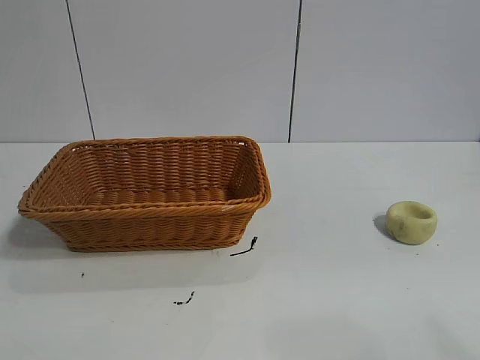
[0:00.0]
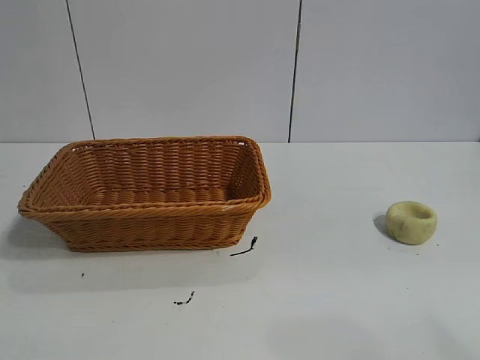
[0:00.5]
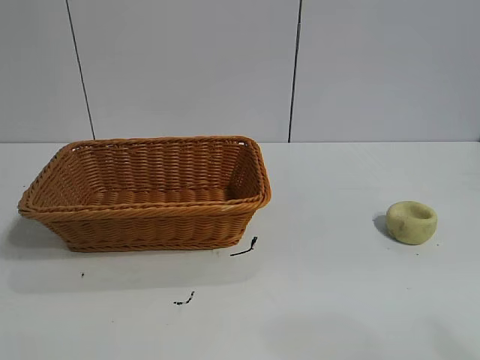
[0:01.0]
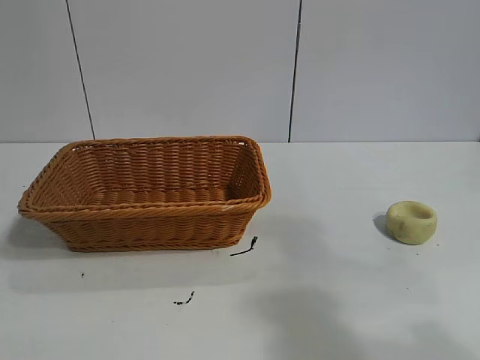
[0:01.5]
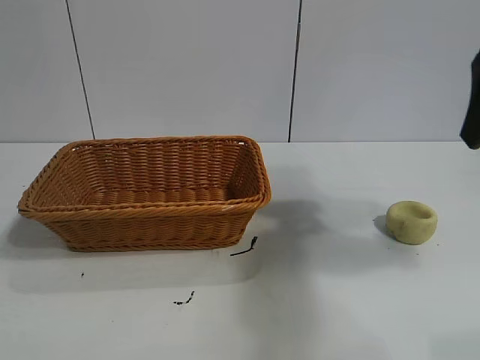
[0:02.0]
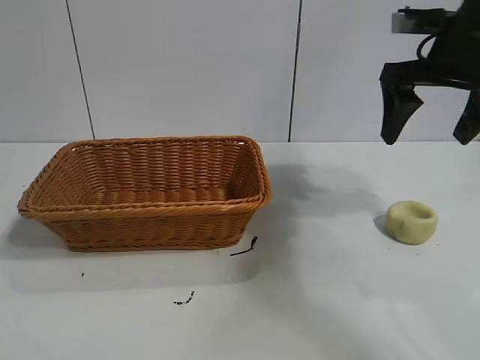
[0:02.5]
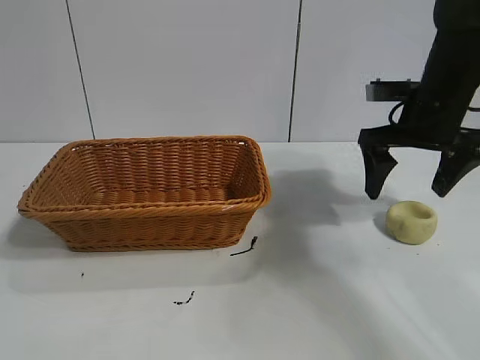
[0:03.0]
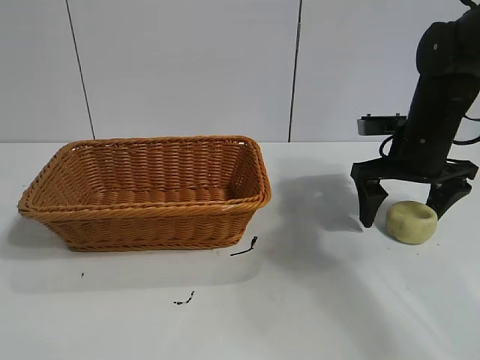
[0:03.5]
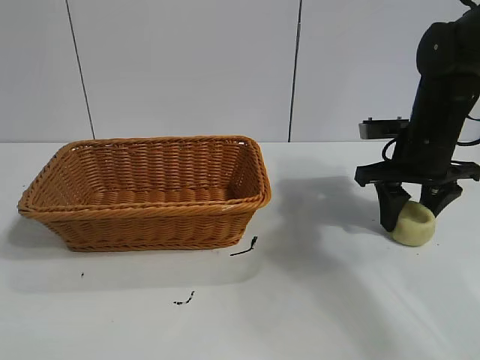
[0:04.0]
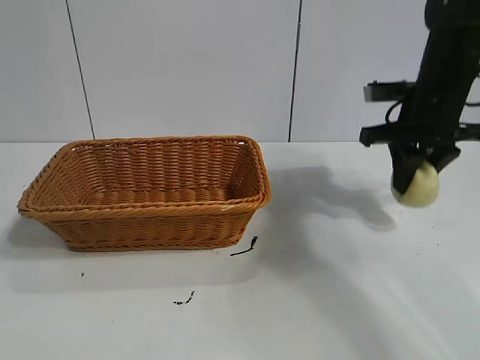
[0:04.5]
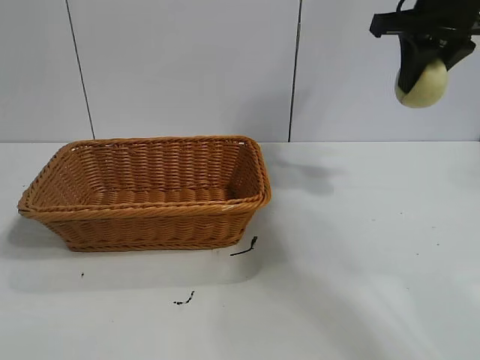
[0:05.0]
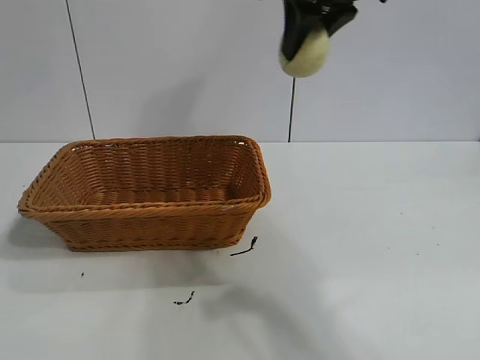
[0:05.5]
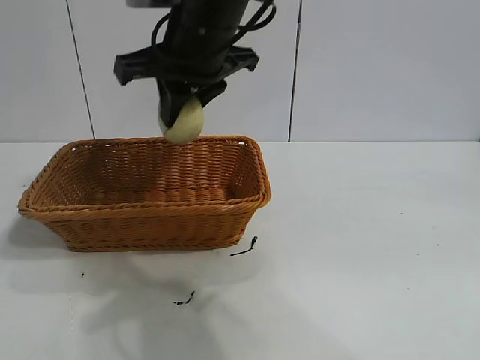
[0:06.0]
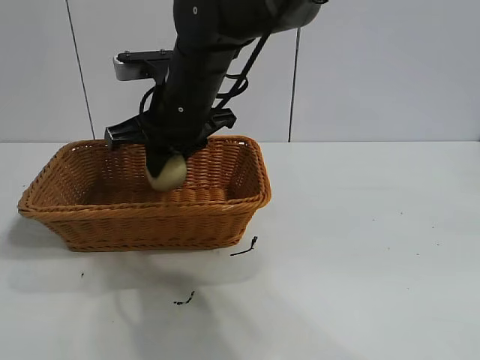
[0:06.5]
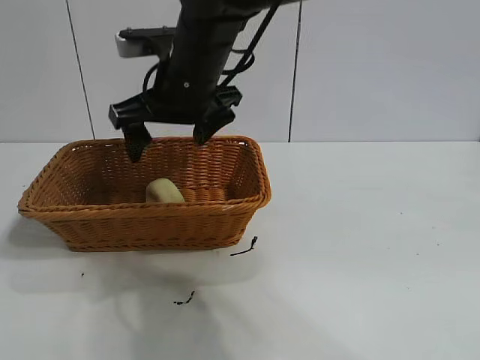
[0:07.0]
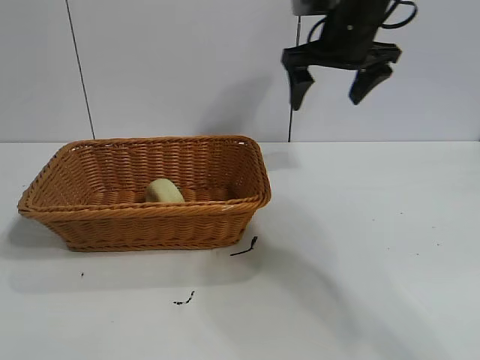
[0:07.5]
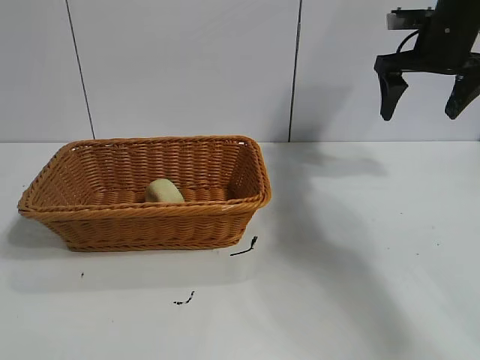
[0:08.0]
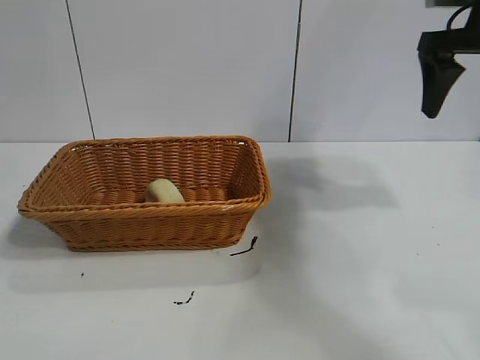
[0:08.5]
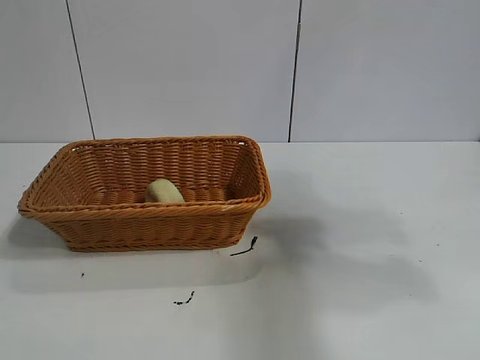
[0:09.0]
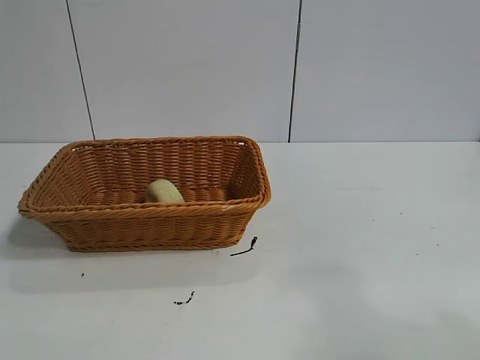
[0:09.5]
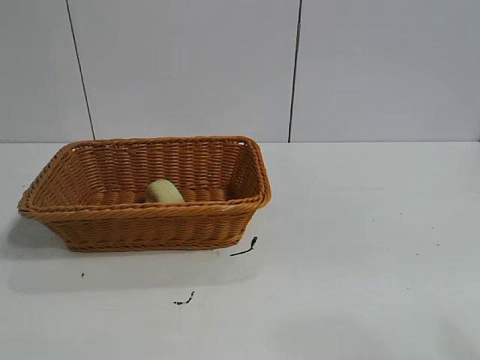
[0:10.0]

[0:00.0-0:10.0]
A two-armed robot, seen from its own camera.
Task of the whole recording: pick up the egg yolk pastry and put it into the basket.
Step, 0:01.5 to 0:04.0: Grasp egg yolk pastry with right gripper.
Step, 0:04.5 to 0:06.5: Place the egg yolk pastry in the basket with right gripper.

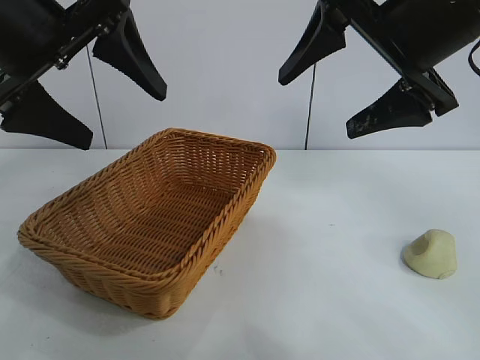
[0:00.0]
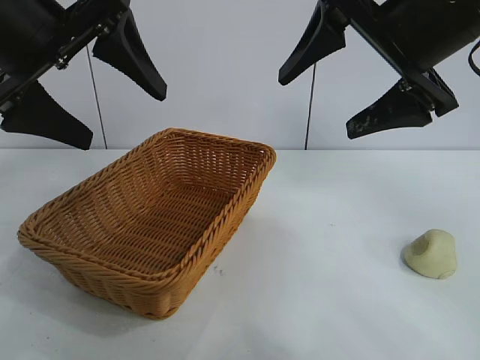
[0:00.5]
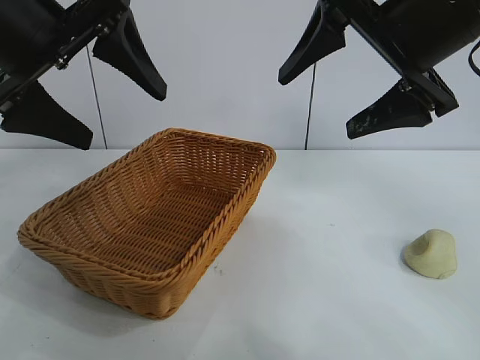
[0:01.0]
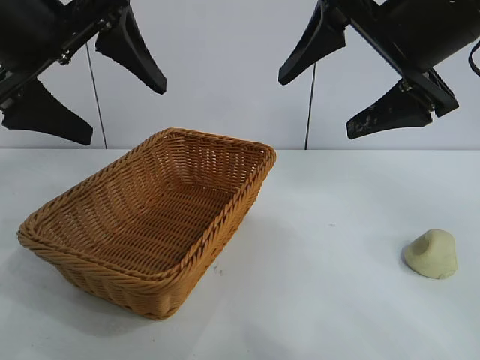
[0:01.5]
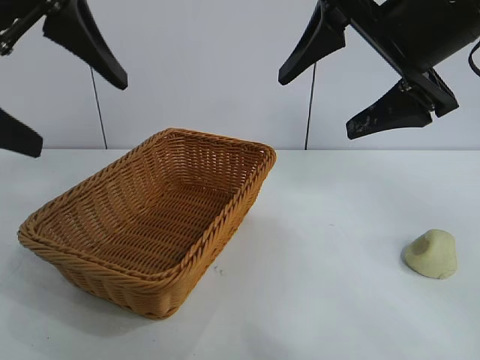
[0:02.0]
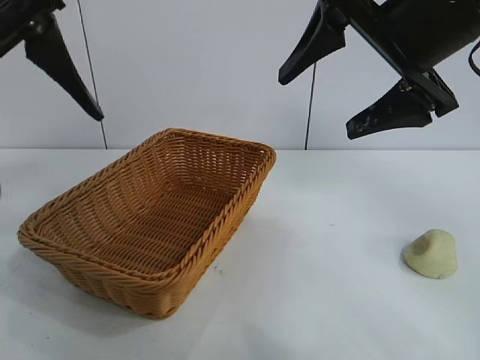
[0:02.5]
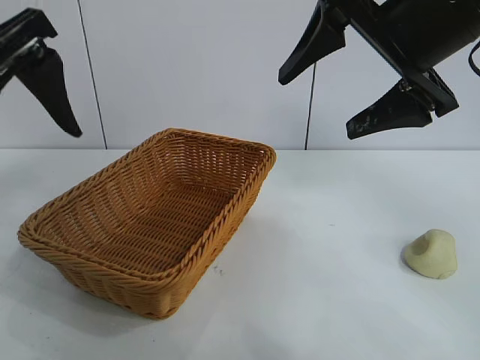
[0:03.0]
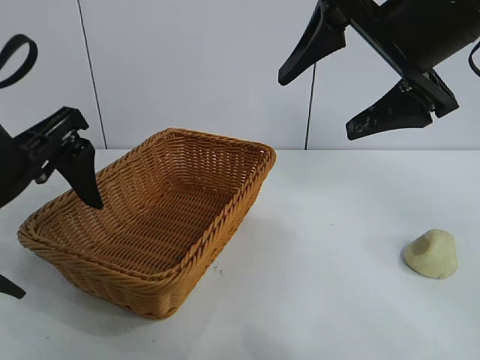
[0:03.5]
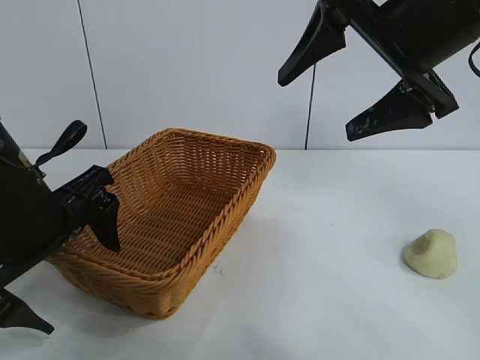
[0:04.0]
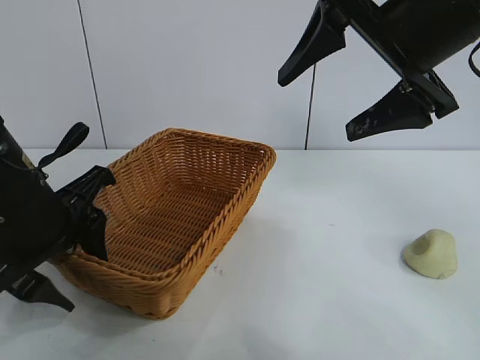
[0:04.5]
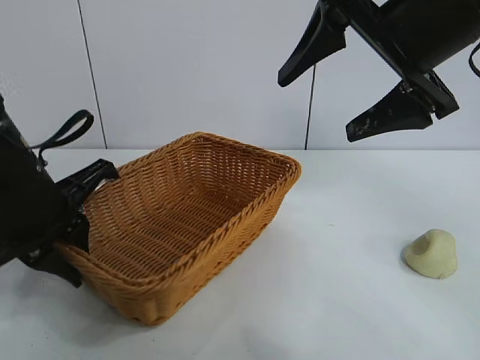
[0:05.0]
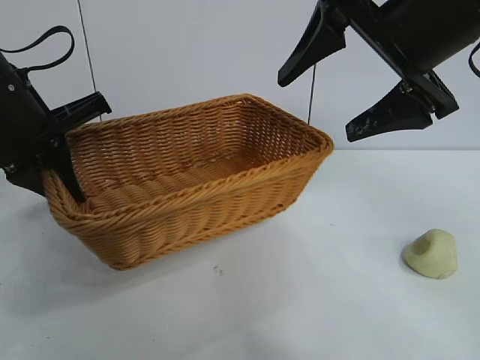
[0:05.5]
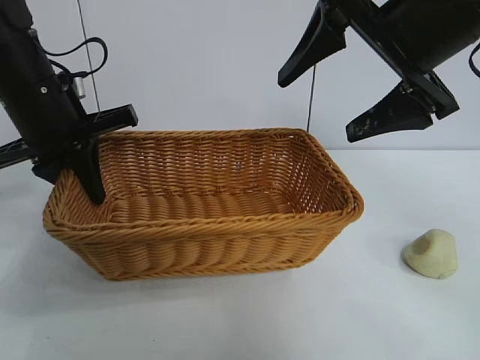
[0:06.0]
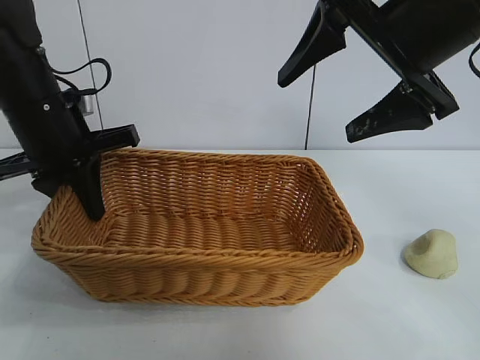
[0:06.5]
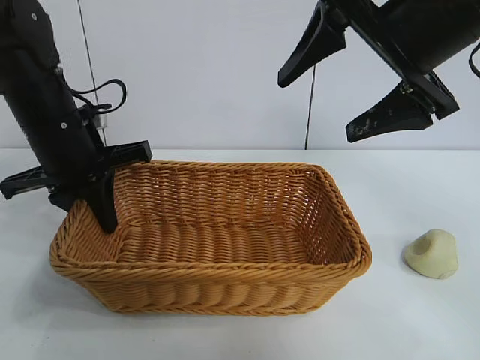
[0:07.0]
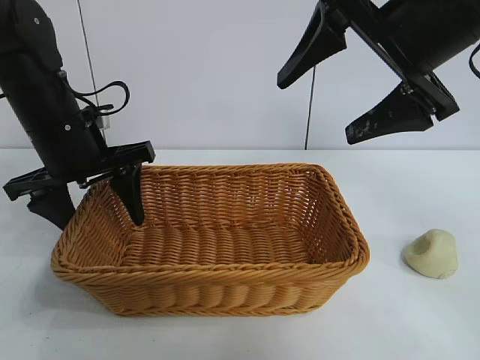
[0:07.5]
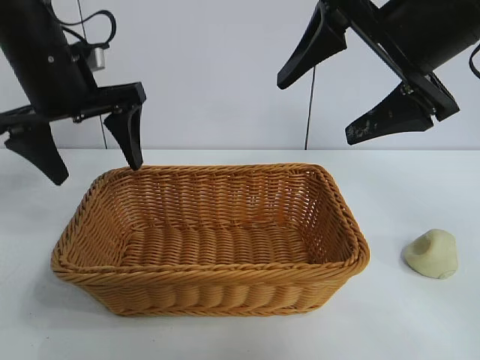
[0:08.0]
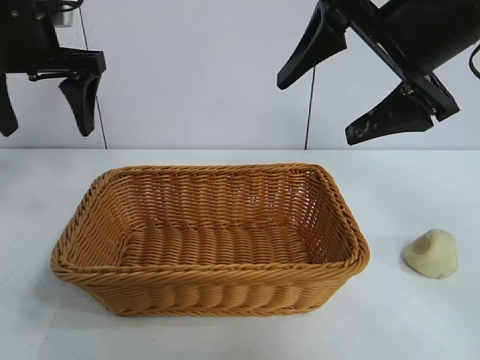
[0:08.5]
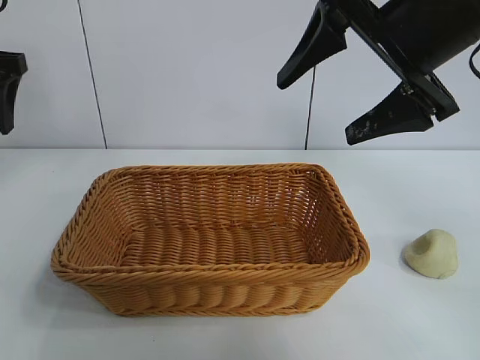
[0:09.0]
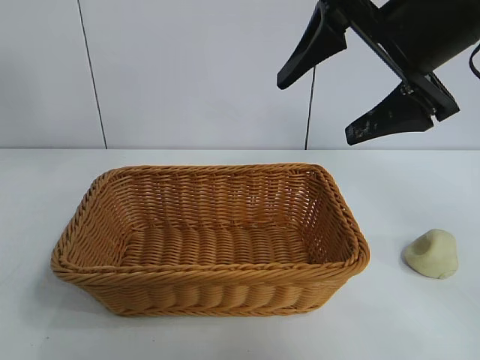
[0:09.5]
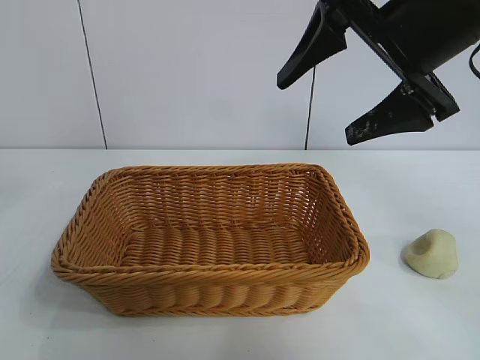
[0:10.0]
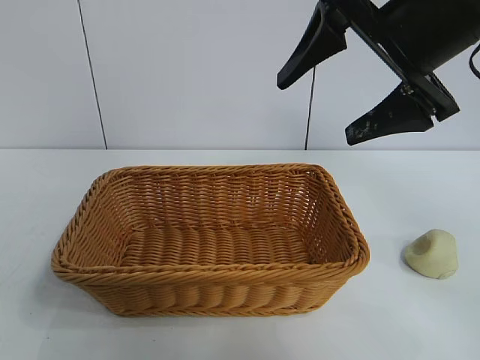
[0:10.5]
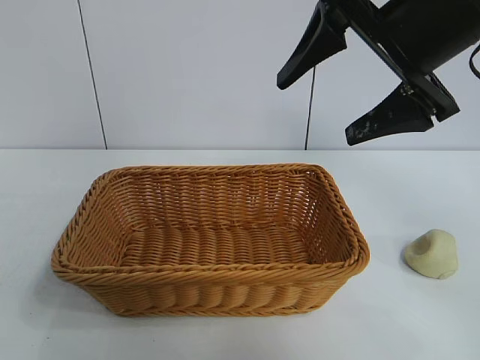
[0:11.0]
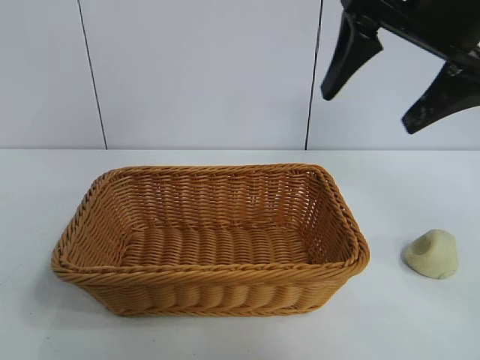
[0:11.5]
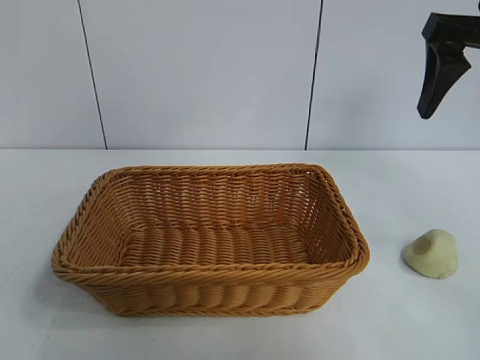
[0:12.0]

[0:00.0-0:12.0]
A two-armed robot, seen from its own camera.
Task of the whole recording: pick up the egg yolk pastry and put it into the basket.
Step, 0:01.5 to 0:04.5: Grasp the basket with left gripper.
Step, 0:05.0 to 0:07.5: Place the basket in the center of view with left gripper.

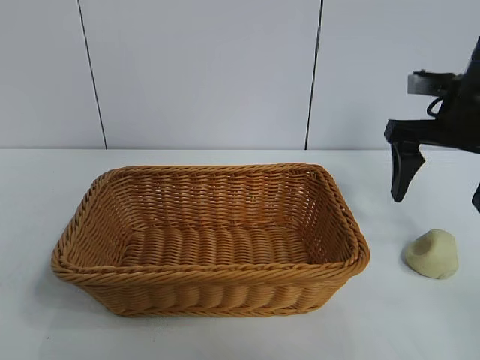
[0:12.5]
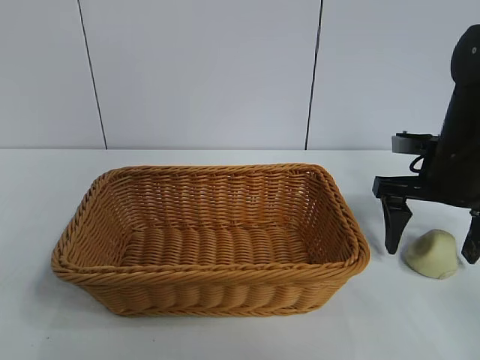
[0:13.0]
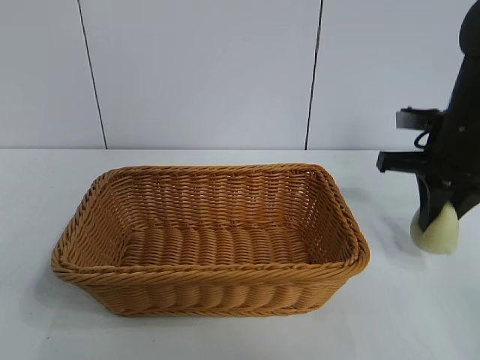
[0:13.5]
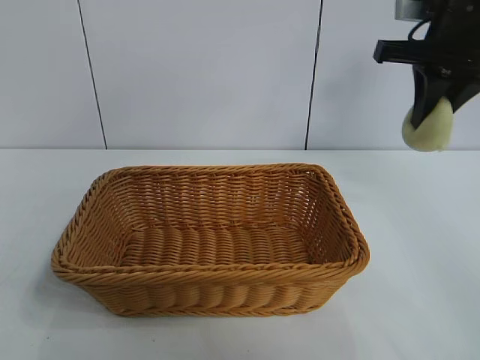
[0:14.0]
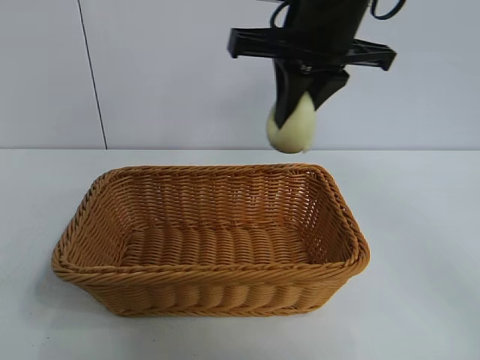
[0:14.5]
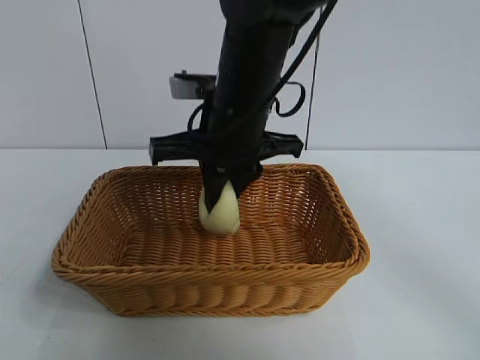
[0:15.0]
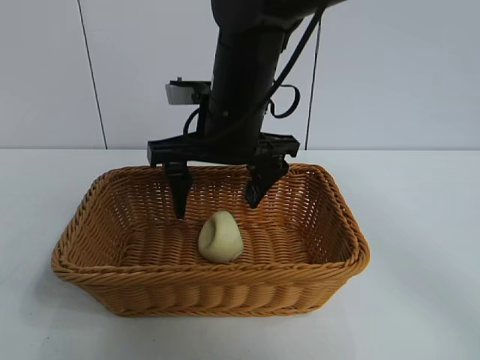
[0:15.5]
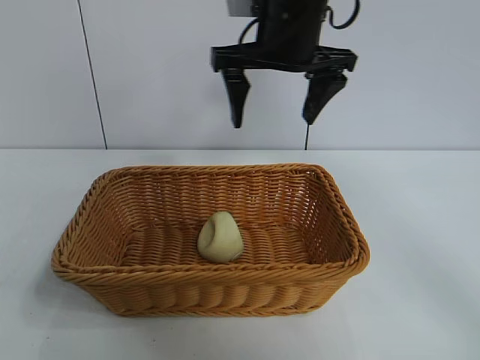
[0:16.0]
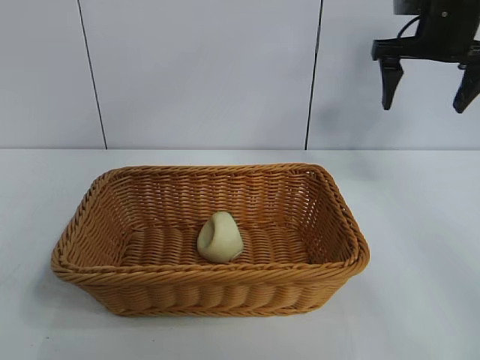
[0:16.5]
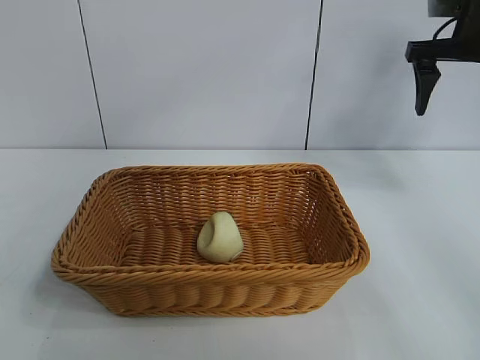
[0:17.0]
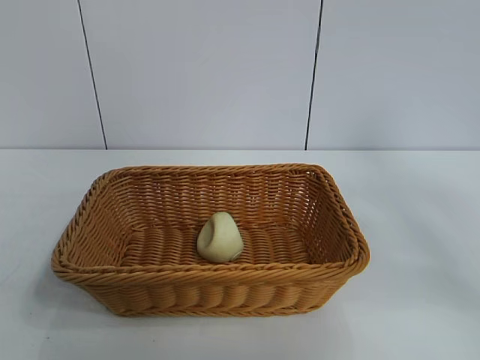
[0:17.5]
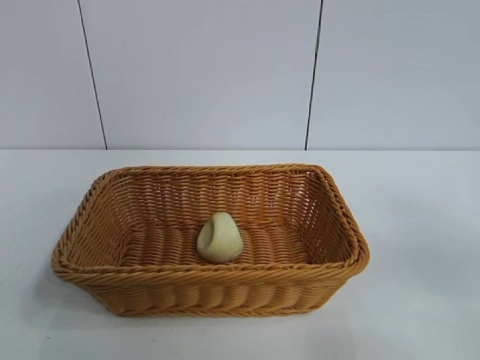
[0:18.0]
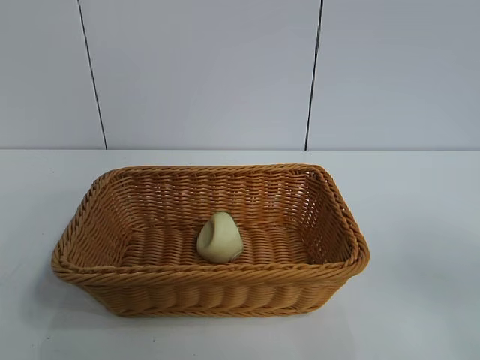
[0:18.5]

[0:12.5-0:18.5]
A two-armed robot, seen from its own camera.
Task of the whole recording: pick up the egg yolk pastry and put it into the basket.
Step, 0:13.5 to 0:15.0: Place the egg yolk pastry in the basket with right gripper.
